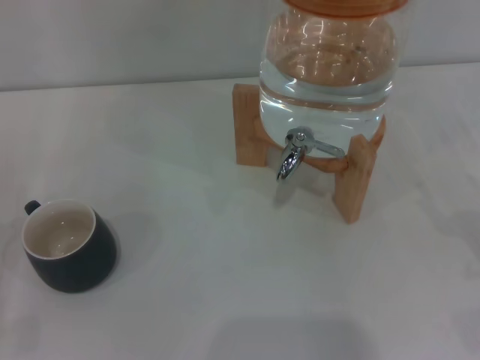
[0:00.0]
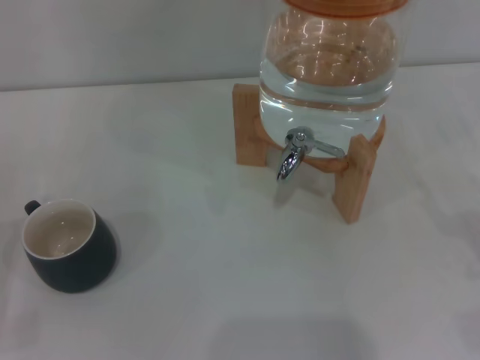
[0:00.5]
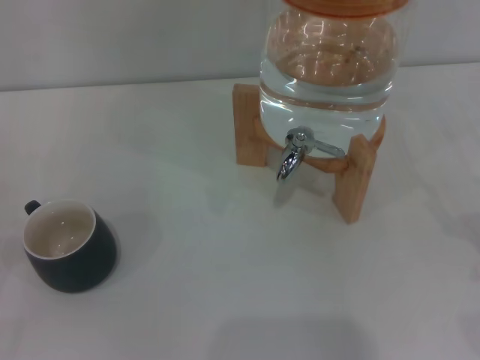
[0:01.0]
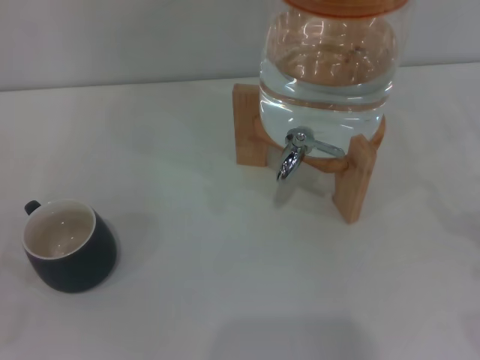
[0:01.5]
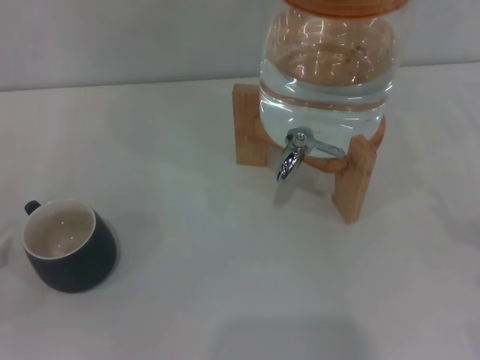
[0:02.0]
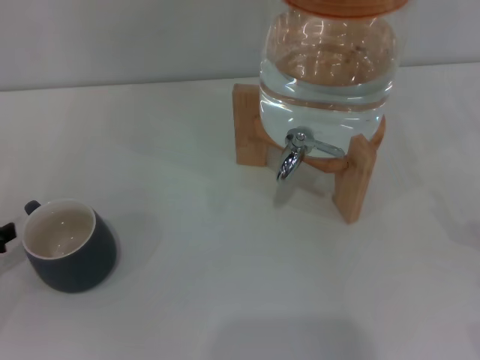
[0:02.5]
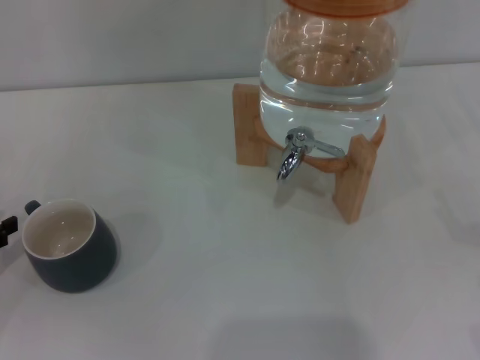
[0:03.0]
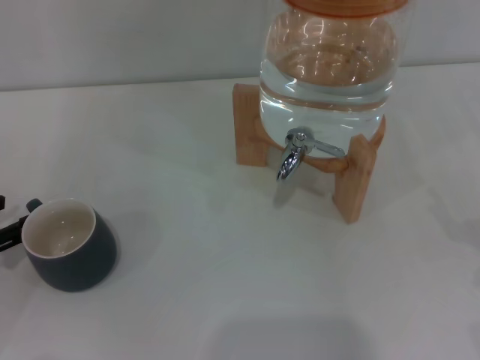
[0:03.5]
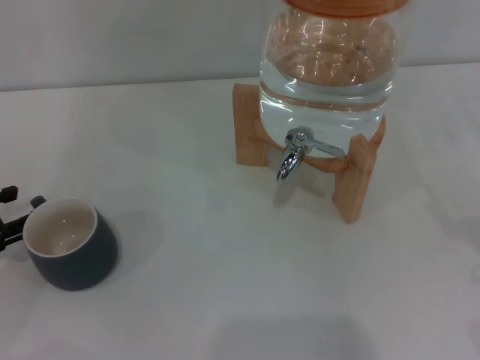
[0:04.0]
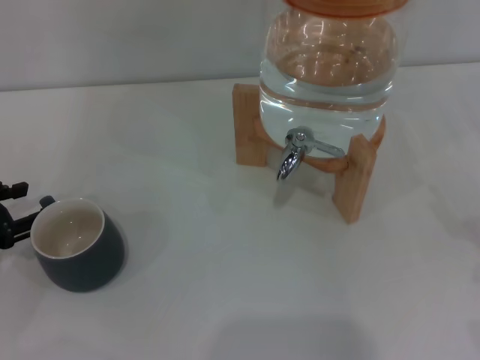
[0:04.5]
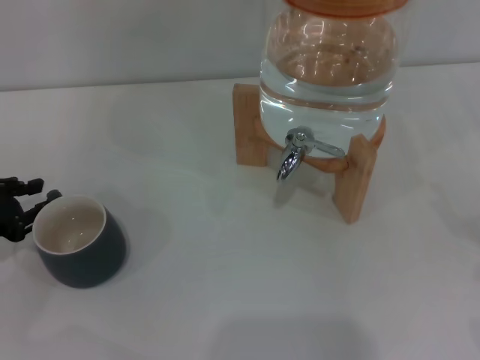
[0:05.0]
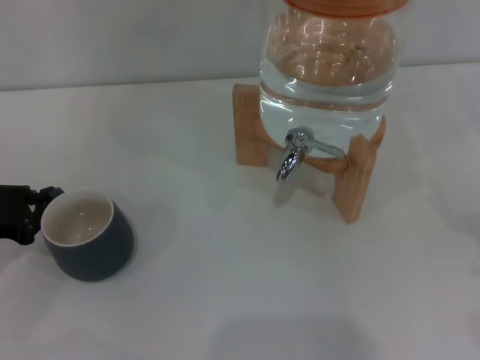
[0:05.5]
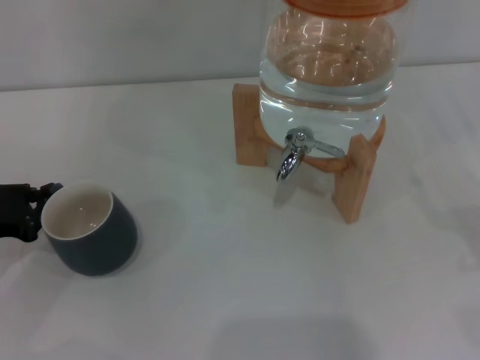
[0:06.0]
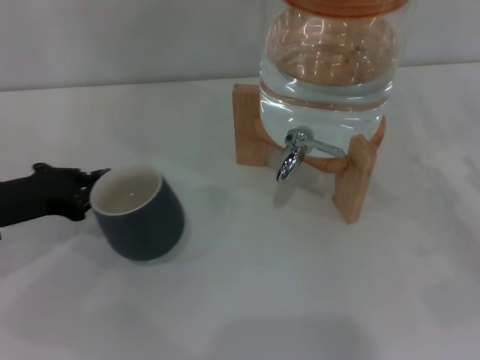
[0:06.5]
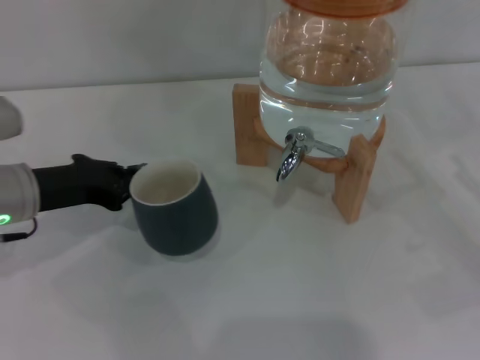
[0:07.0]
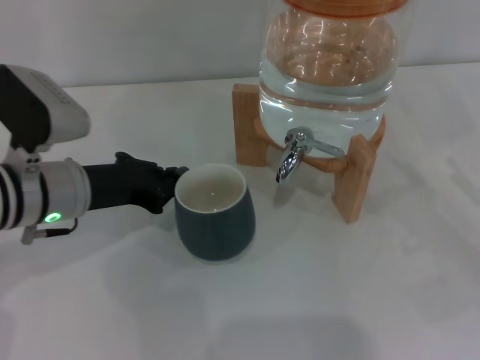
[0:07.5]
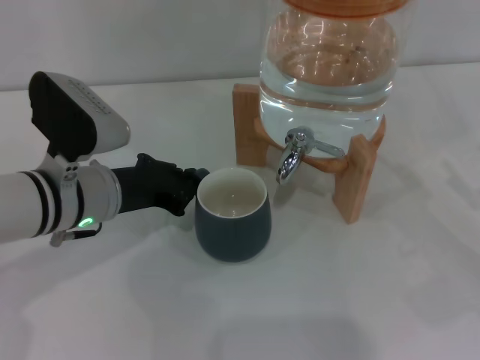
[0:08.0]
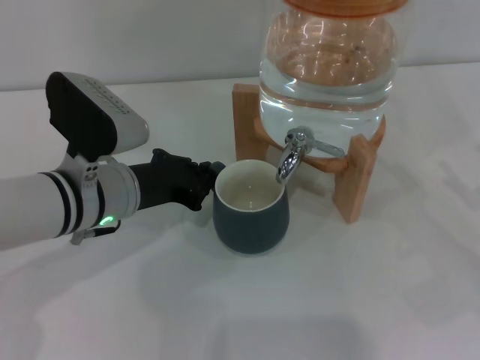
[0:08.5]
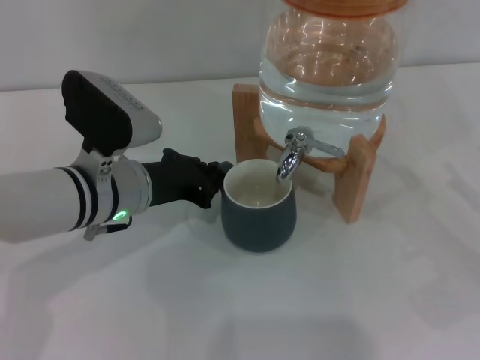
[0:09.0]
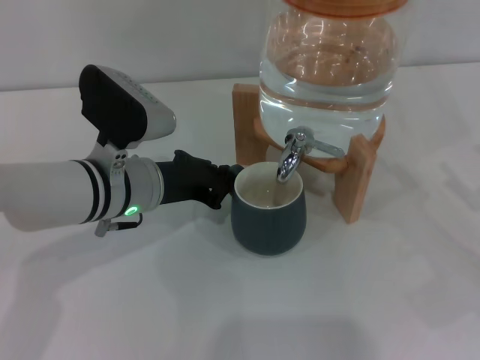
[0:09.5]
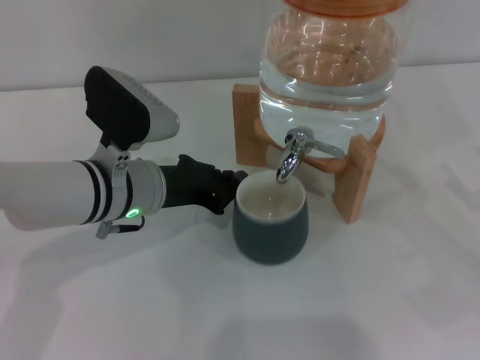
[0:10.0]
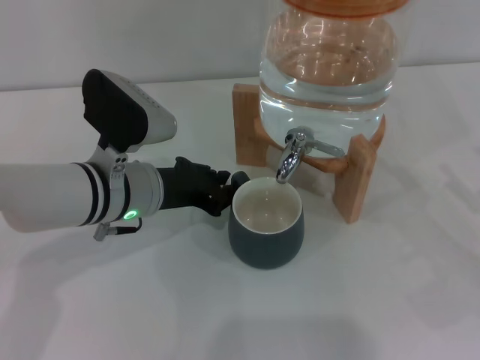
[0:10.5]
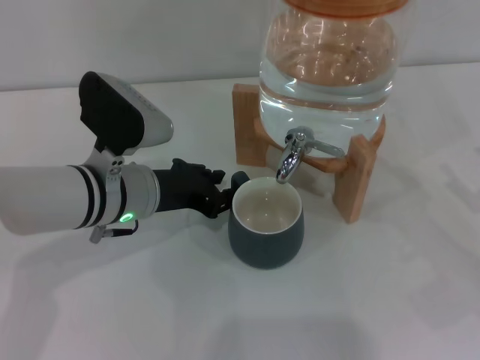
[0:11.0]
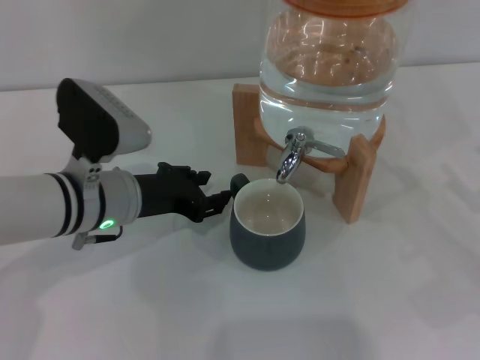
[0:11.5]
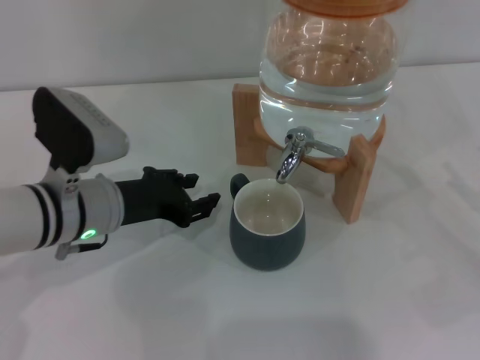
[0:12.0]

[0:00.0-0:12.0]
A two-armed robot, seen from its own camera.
Task of the whole recording: the left gripper pick up the black cup and place it horizontally under the faucet, the right gripper turn on the faucet to fill the cup, and then turn off the faucet.
Step, 0:00.0 to 0:11.5: Move the cup beneath the water dispenser nozzle with the left gripper.
0:02.0 to 0:04.0: The left gripper travels forward and to the right by some 10 cm.
0:04.0 to 0:06.0: The left gripper closes its fingers.
0:06.0 to 0:08.0: The left gripper goes about 15 cm to the right; the right gripper moves some 5 cm.
0:08.0 to 0:10.0: The grippers move only a little.
0:10.0 to 0:12.0: The left gripper opens its fingers.

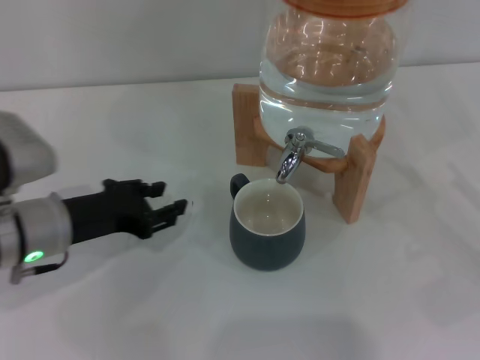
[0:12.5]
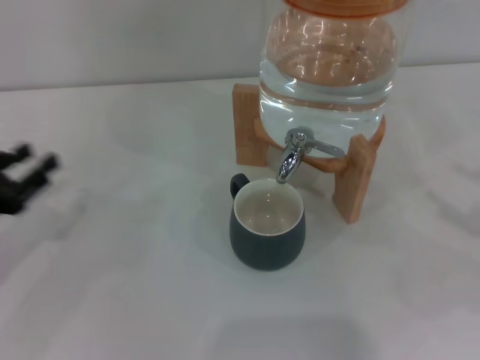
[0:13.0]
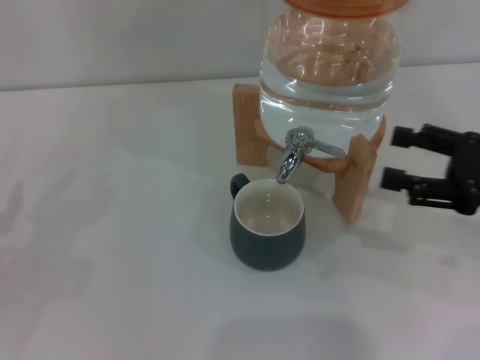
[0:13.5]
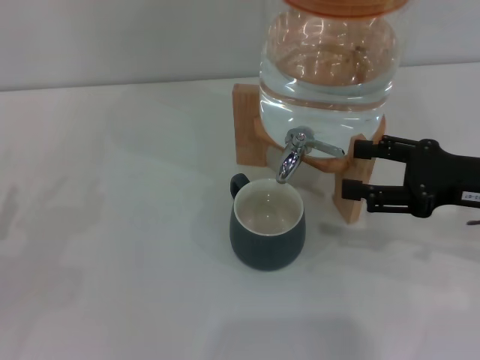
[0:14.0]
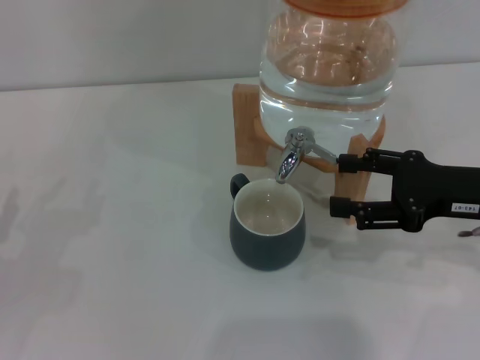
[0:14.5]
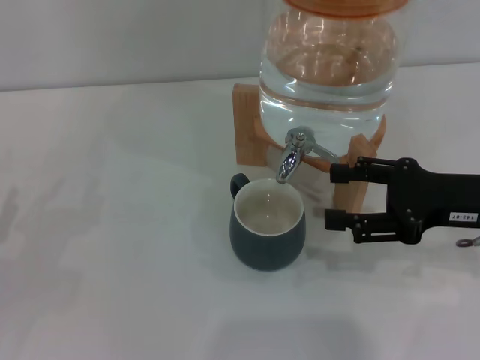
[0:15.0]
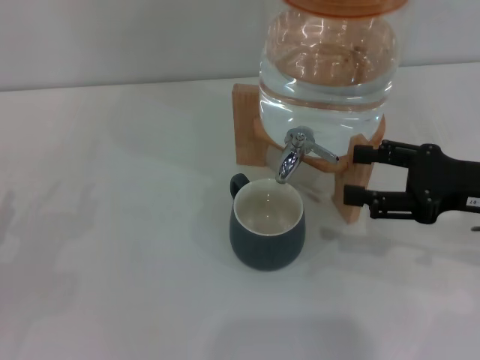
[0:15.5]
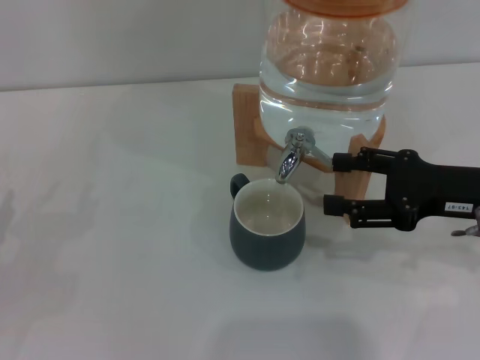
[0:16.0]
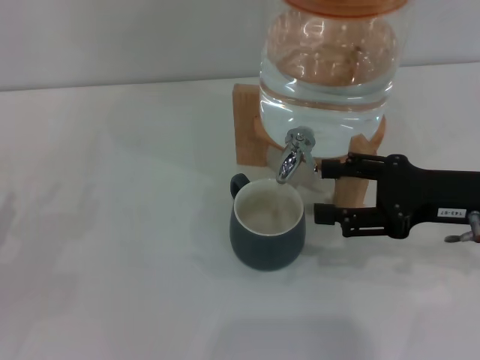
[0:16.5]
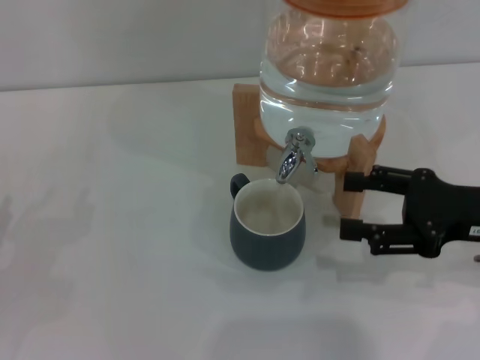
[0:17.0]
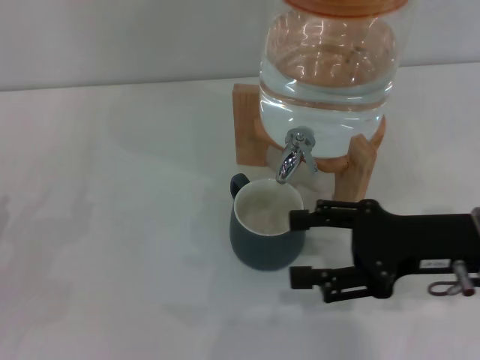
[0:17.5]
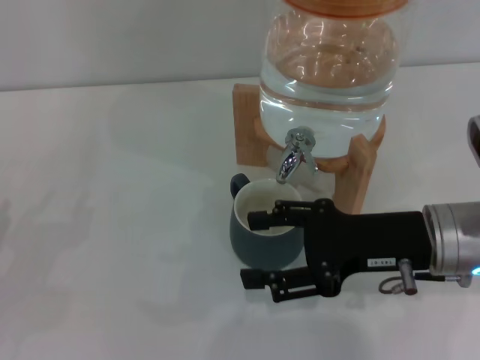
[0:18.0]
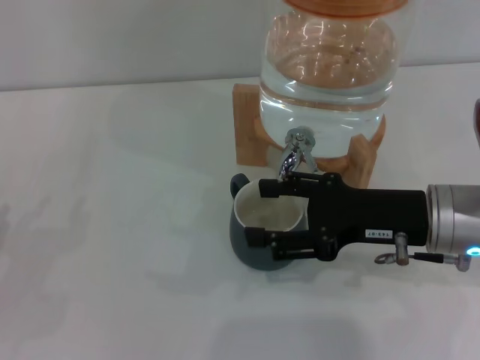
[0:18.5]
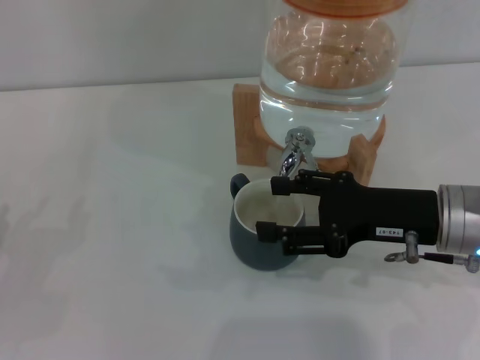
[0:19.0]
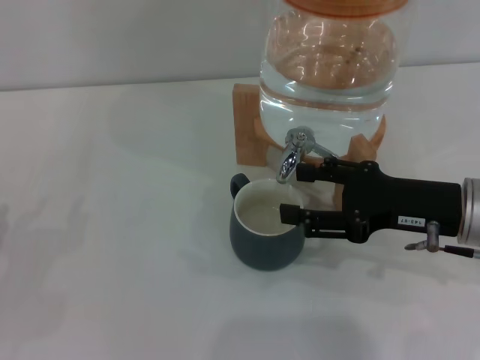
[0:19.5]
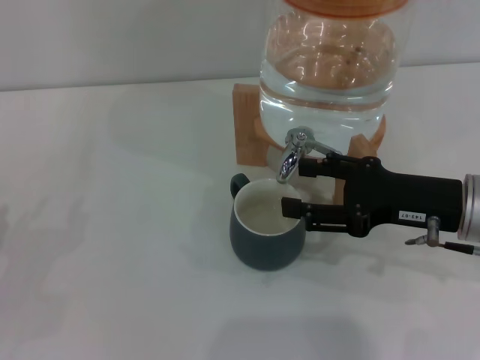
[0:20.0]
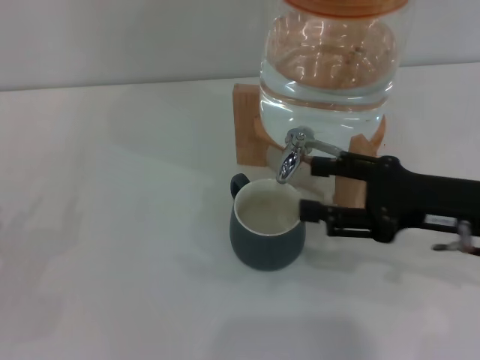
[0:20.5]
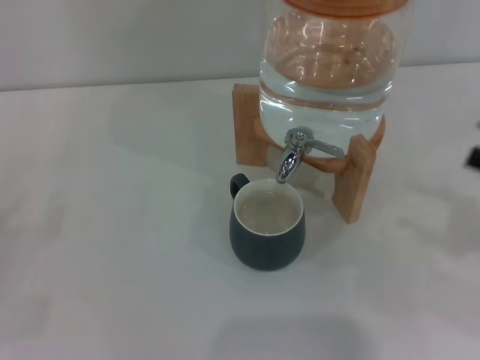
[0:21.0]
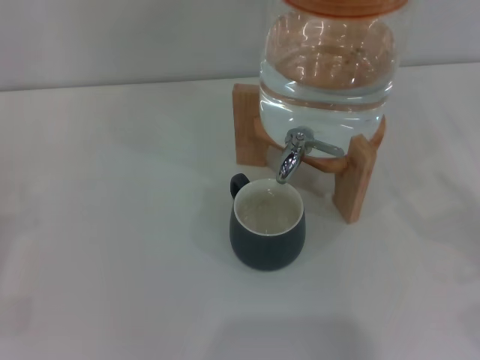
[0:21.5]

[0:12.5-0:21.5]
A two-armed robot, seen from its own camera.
Task of the whole recording: the left gripper pick up the black cup and place it horizontally under the faucet, the right gripper turn on the faucet to fill the cup, and then turn off the faucet.
Step, 0:12.5 to 0:16.5: Open the dispenser valve and fill the cup with water with the right gripper.
Step, 0:17.0 to 0:20.0: Close the dispenser valve with the right gripper.
0:12.5 to 0:14.5: The left gripper travels to the left and backward by approximately 15 cm, while the right gripper moves to the left, forward and upward, some 10 cm.
0:14.5 to 0:17.0: There are only small adjustments of the grippers.
0:19.5 to 0:21.5: The right gripper travels to the right and backward by about 20 cm; the left gripper moves approximately 5 cm.

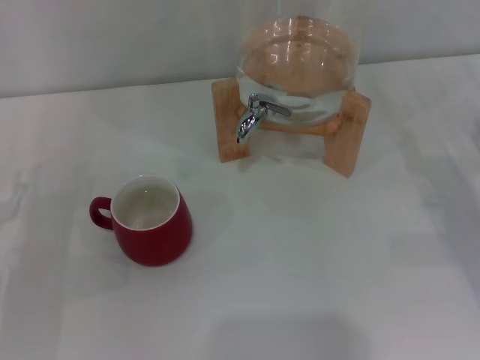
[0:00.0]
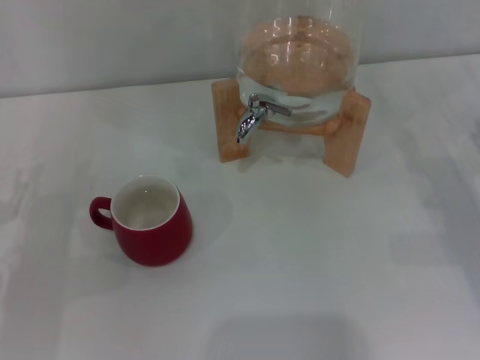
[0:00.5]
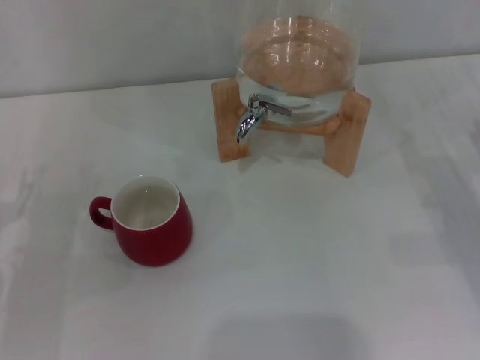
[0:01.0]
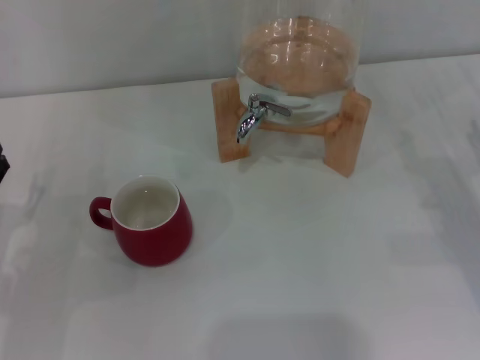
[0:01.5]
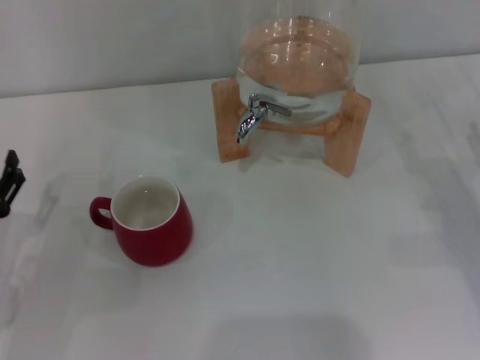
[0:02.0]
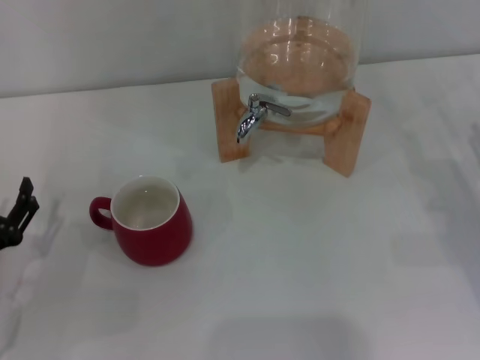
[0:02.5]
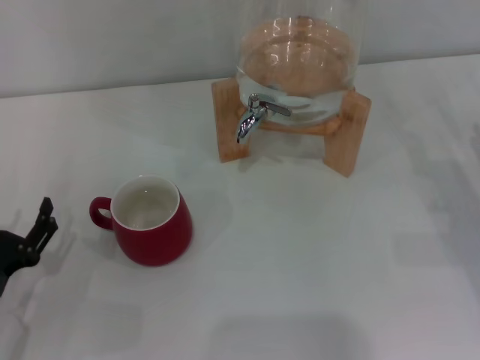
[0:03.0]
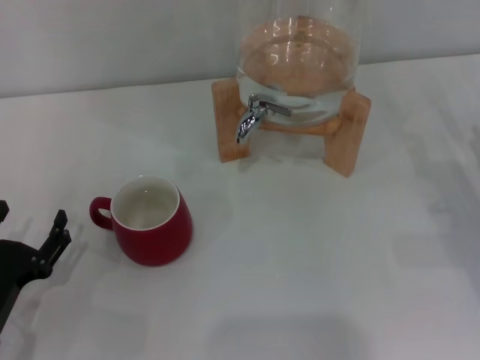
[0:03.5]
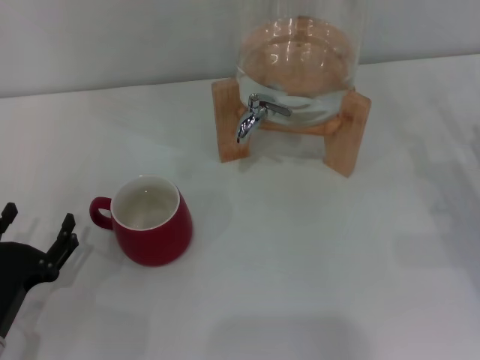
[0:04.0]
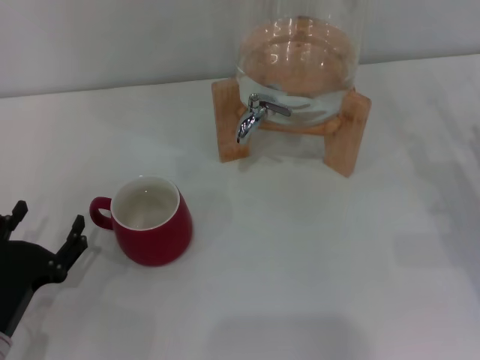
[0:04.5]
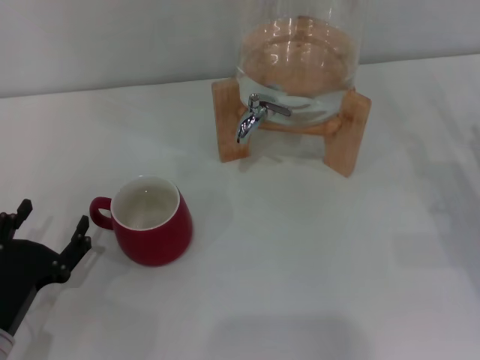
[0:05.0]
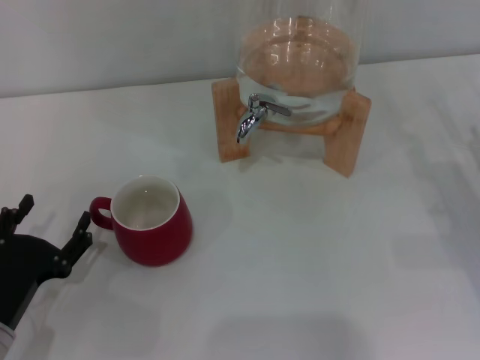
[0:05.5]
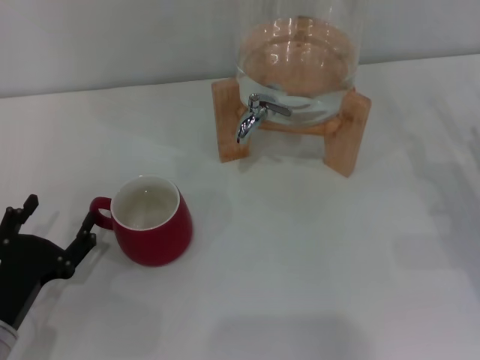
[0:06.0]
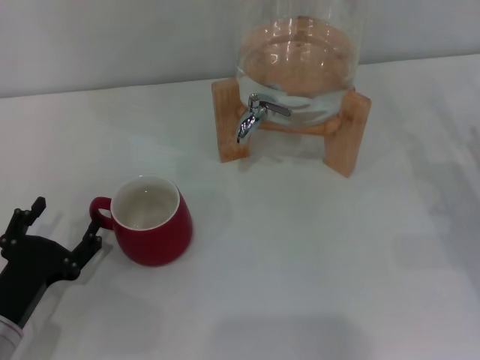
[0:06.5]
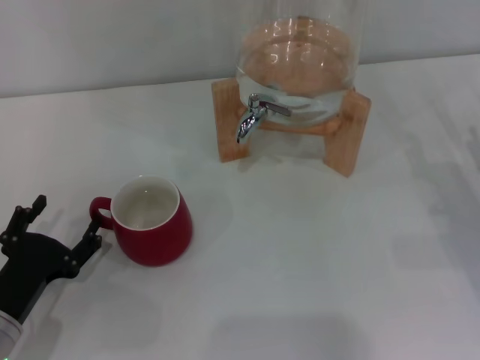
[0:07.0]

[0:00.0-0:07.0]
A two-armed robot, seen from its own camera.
Task of the whole recording: the left gripper pick up the red cup and place it horizontally under the faucet, the right gripper turn on the faucet to fill the cup, and then turn off the faucet.
0:02.0 to 0:03.5: The left gripper travels backward by approximately 5 cm.
0:03.5 to 0:07.0: The grippers stay close to where they were, moving slightly.
